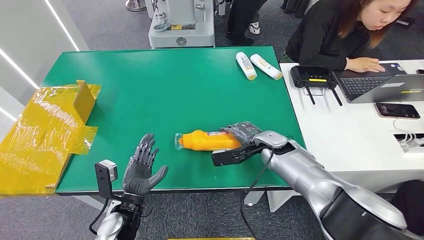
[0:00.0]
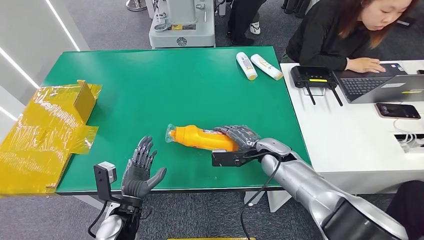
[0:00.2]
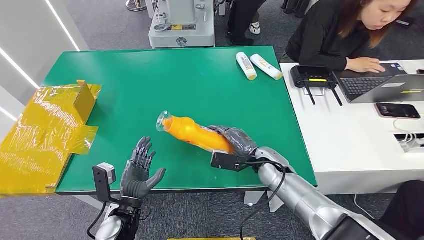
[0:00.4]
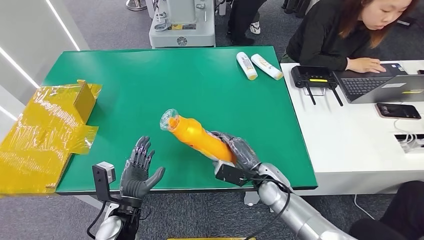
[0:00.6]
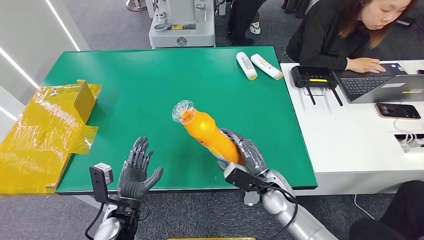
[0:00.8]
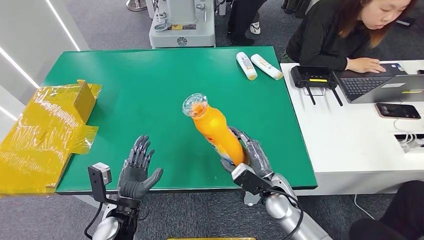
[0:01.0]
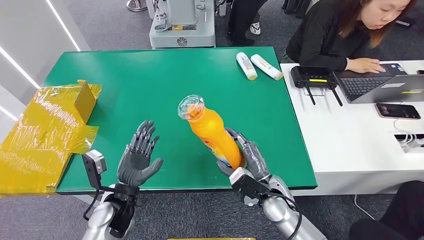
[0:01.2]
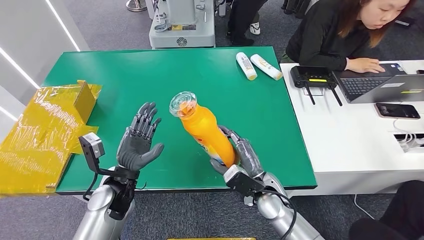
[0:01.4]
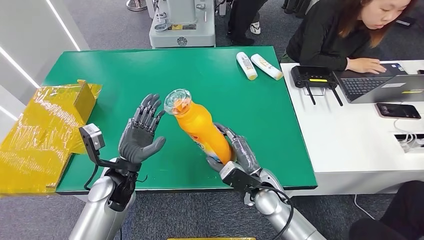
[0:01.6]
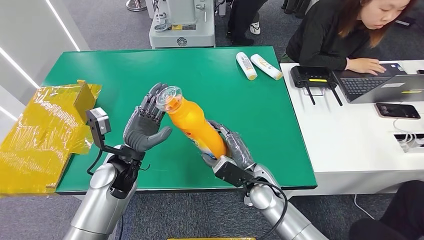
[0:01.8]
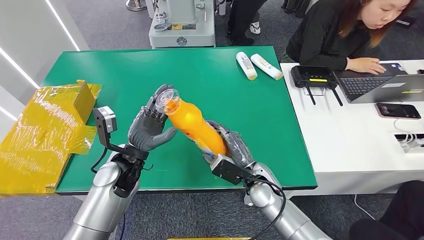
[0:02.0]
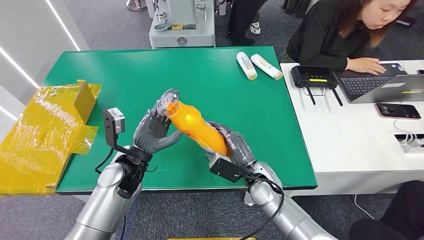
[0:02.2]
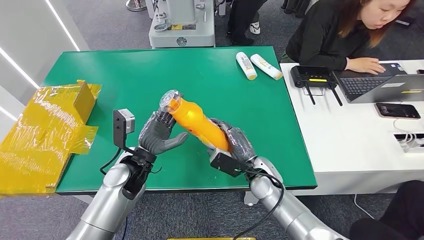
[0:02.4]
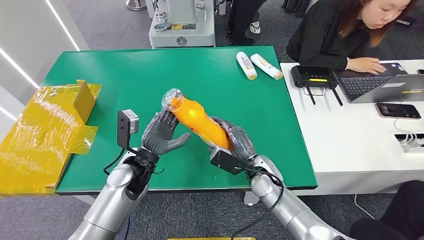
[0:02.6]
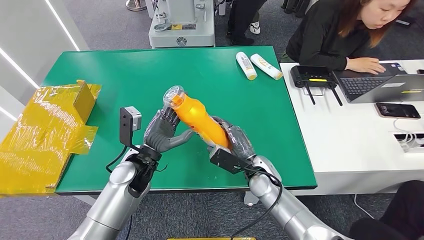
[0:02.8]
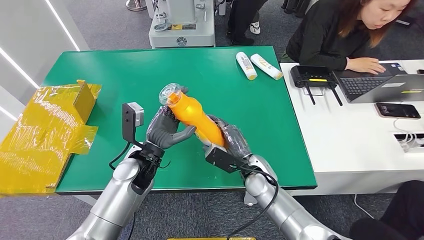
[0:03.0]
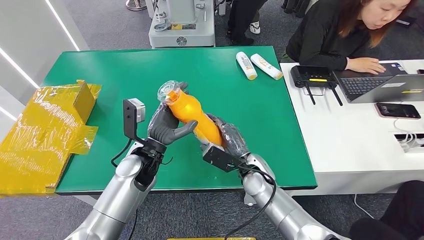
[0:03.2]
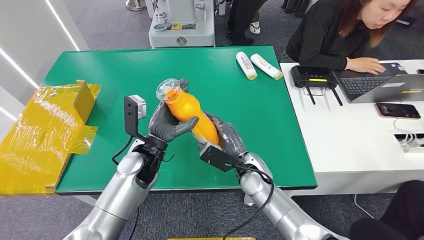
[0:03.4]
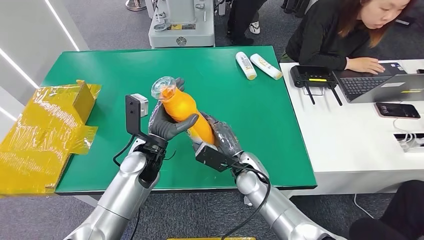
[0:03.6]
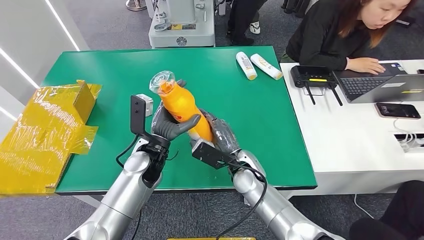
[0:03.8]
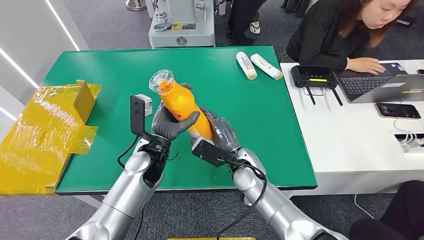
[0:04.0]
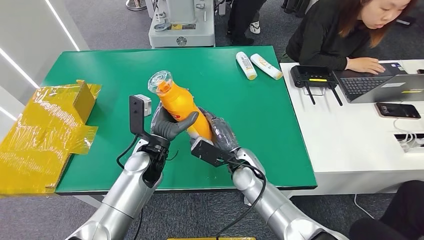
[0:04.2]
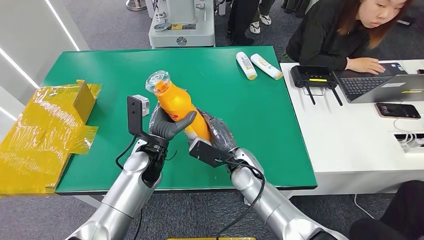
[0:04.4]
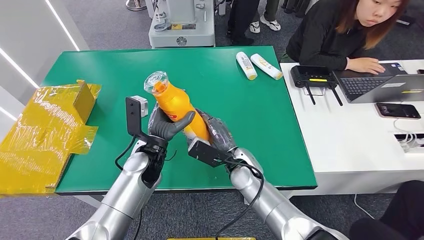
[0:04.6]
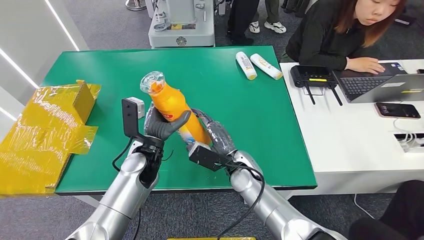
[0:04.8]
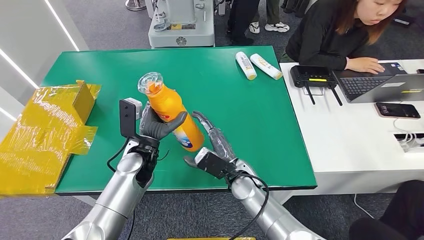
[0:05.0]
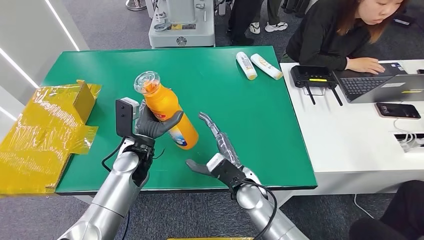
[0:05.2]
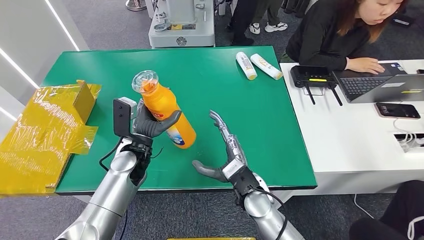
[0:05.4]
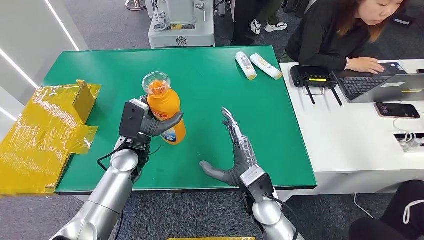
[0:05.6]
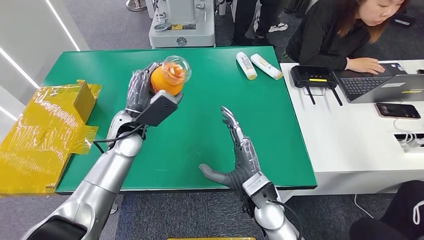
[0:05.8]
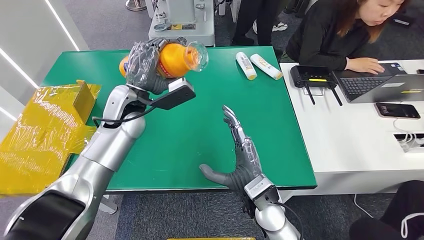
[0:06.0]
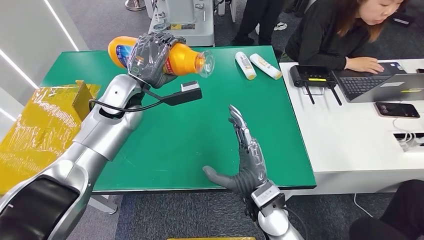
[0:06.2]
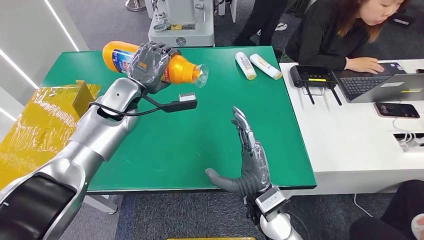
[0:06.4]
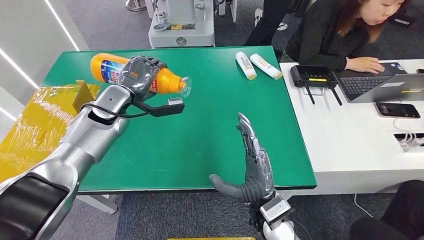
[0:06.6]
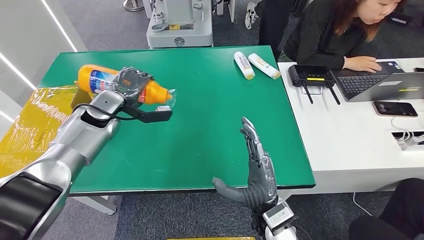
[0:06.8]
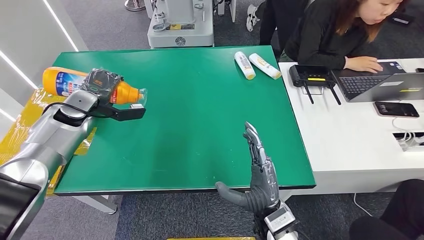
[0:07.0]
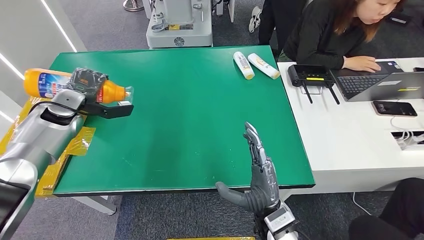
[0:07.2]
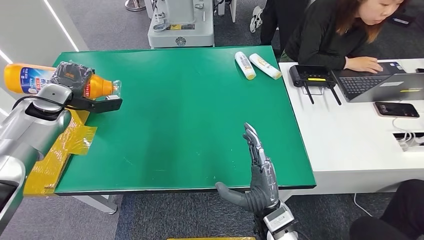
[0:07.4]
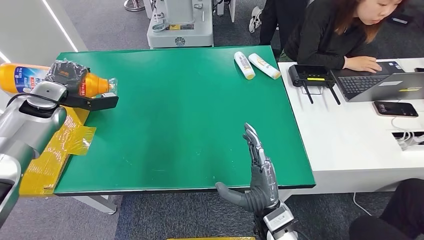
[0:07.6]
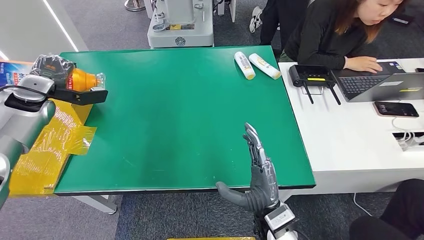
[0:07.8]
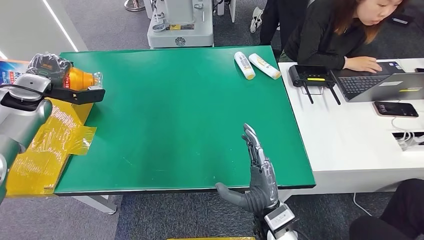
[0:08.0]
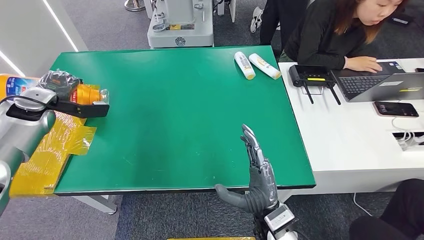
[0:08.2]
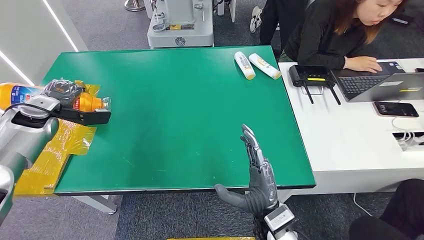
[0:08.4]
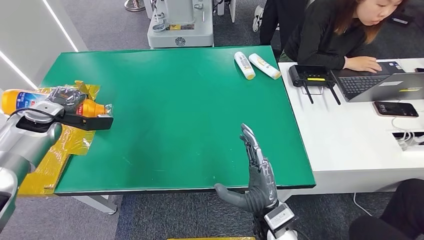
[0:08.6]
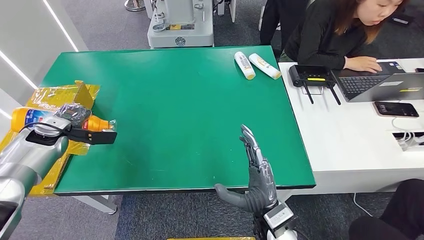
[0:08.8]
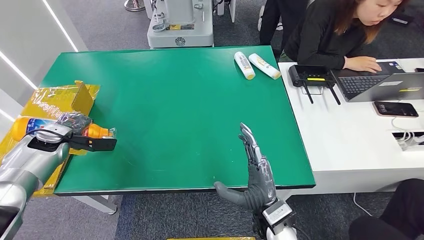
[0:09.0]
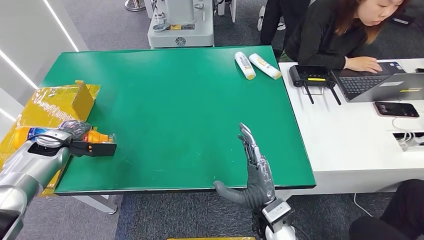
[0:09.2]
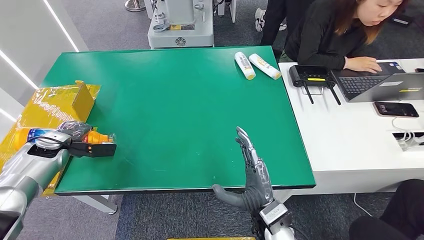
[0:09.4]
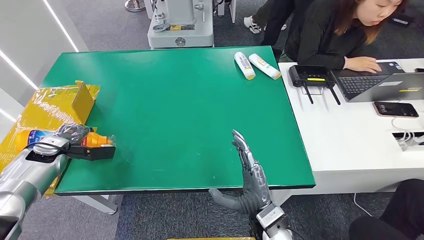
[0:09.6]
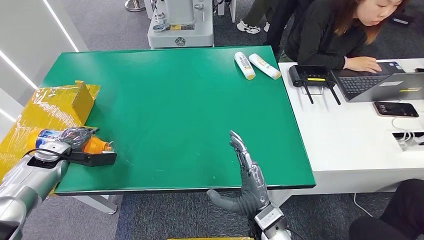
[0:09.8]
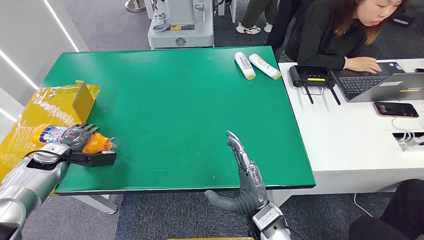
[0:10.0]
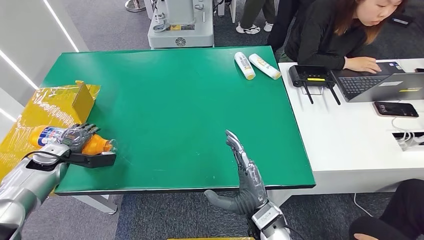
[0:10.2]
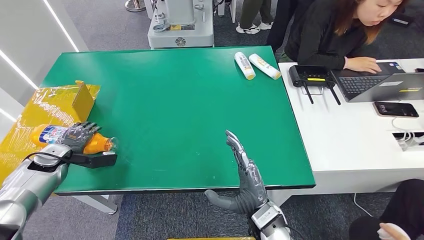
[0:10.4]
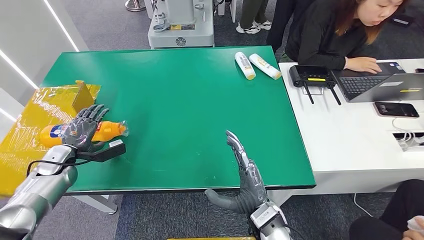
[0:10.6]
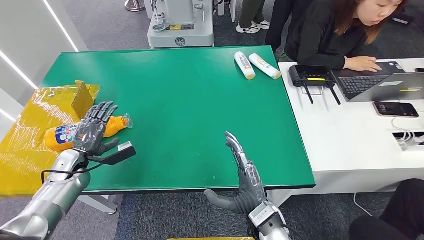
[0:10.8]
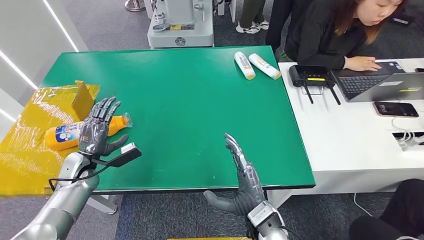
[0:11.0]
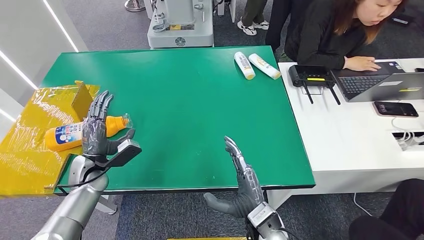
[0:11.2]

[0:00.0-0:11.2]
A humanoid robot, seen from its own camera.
Step, 1.2 to 11.2 s: Turn the bottle to the front side.
0.0 to 1.6 s: The left hand moves upward and forward, roughly 10 cm; the right hand goes roughly 10 cm backward.
1.6 to 3.2 s: The left hand is displaced to the right by some 5 cm.
3.2 to 4.8 s: The hands move only a little.
8.0 to 9.6 s: The left hand is displaced downward and backward by some 15 cm.
9.6 to 11.2 s: The left hand is displaced to the right by about 15 cm.

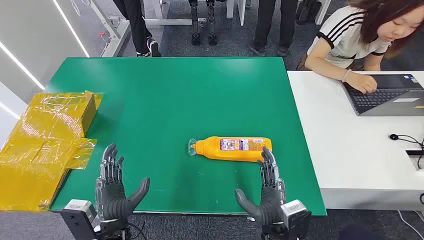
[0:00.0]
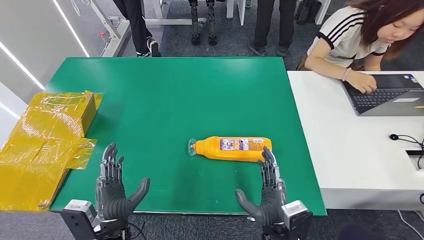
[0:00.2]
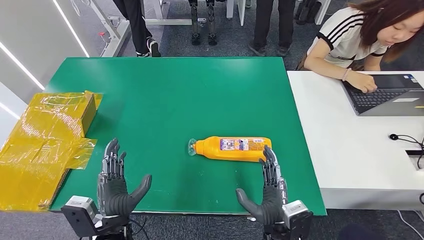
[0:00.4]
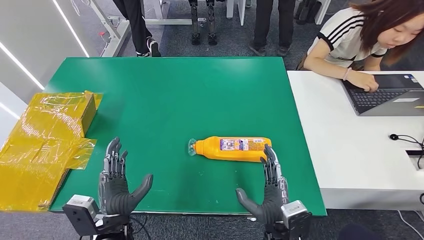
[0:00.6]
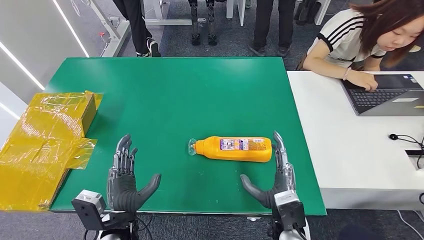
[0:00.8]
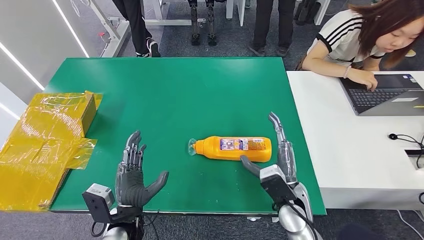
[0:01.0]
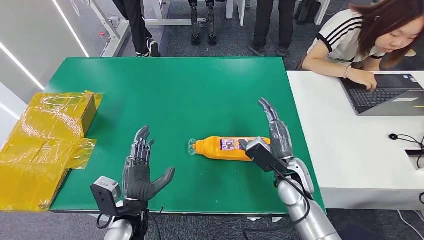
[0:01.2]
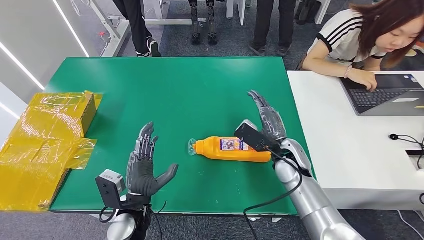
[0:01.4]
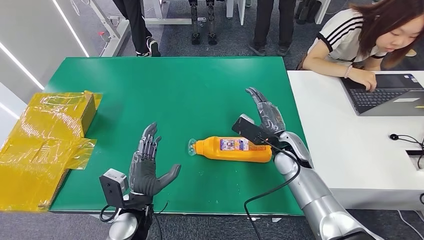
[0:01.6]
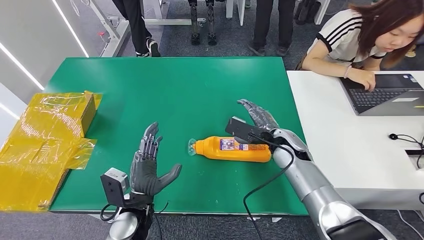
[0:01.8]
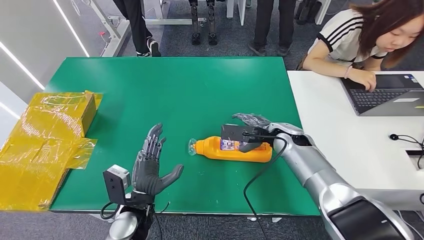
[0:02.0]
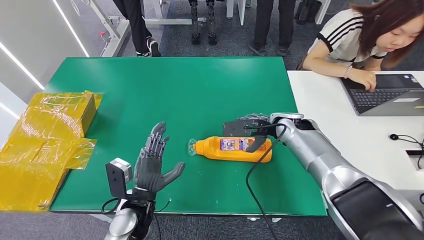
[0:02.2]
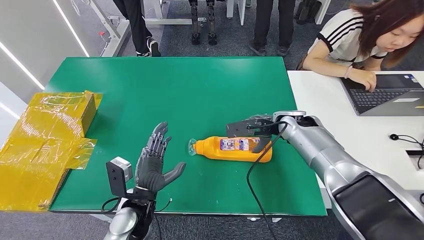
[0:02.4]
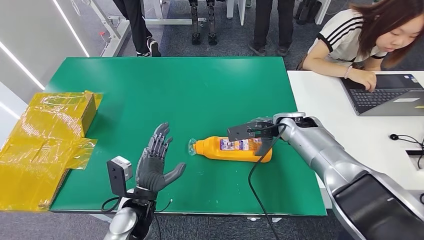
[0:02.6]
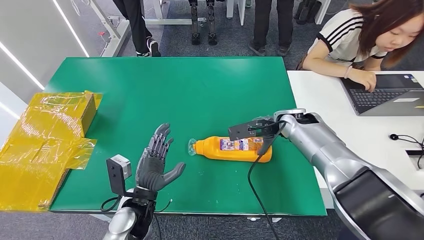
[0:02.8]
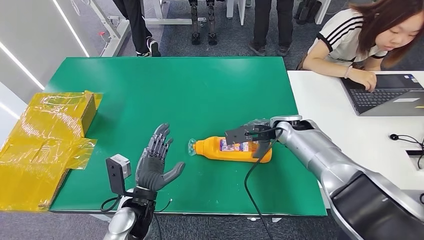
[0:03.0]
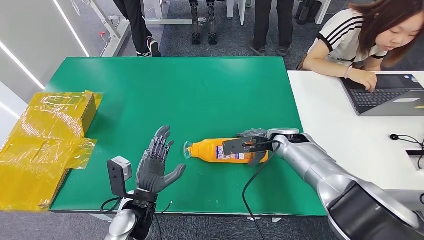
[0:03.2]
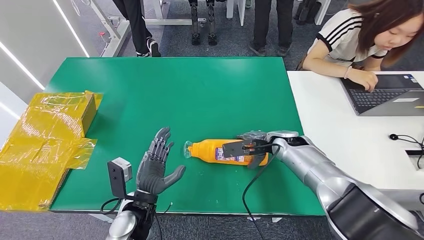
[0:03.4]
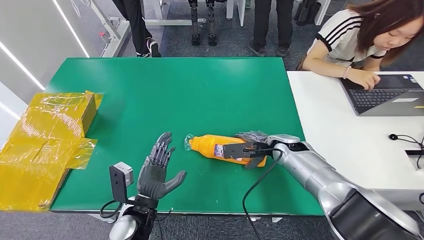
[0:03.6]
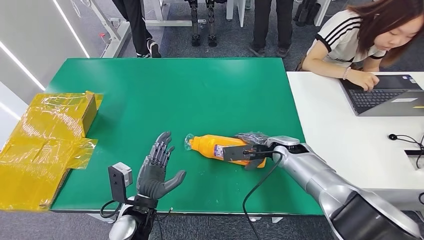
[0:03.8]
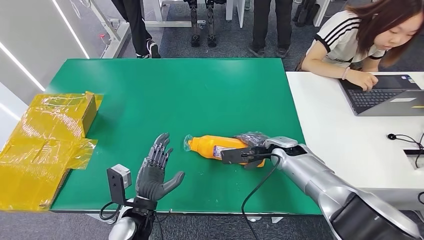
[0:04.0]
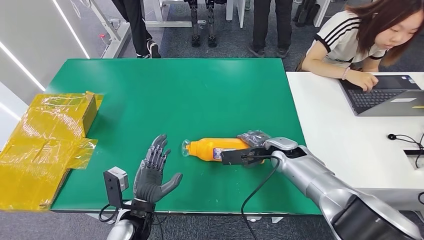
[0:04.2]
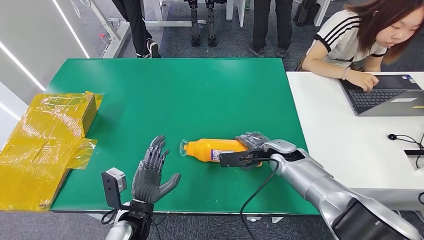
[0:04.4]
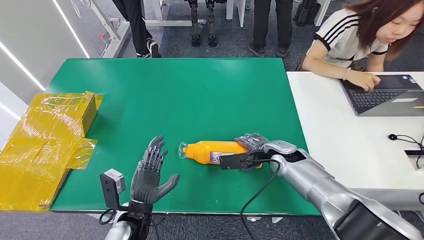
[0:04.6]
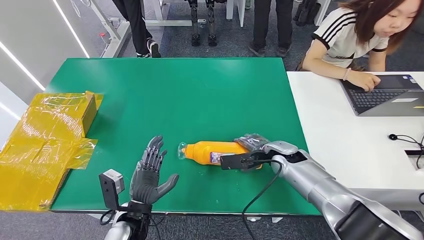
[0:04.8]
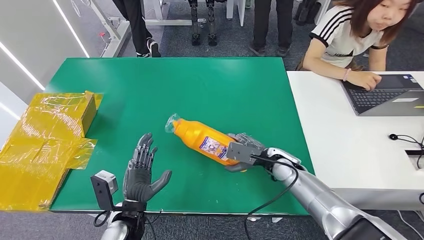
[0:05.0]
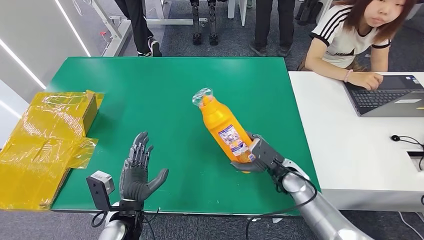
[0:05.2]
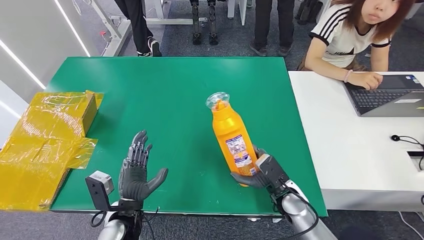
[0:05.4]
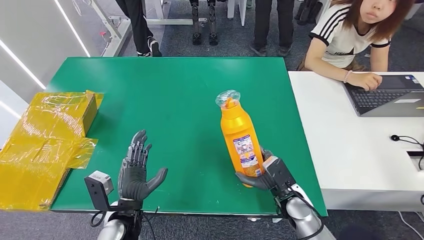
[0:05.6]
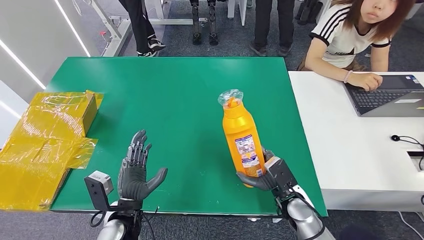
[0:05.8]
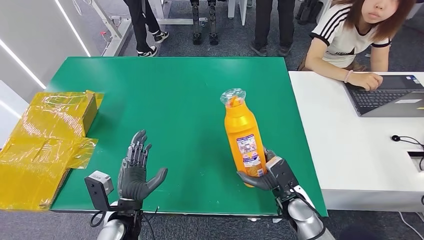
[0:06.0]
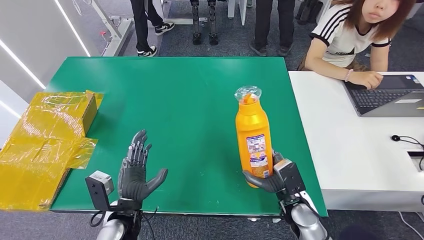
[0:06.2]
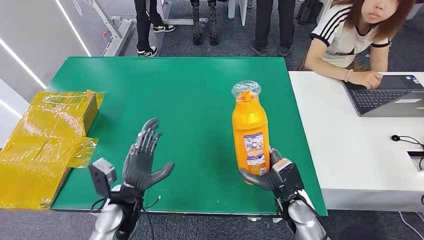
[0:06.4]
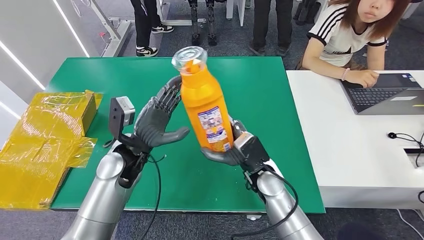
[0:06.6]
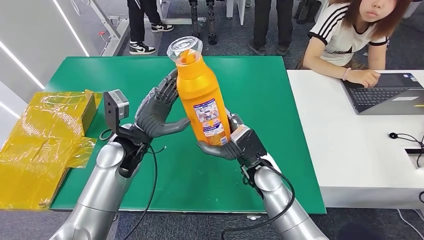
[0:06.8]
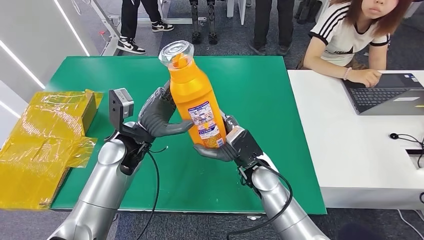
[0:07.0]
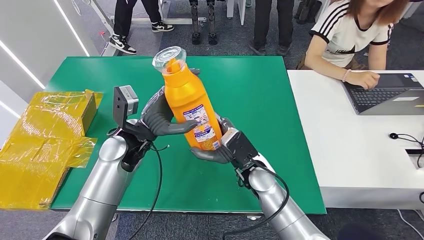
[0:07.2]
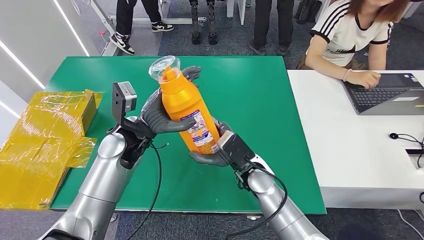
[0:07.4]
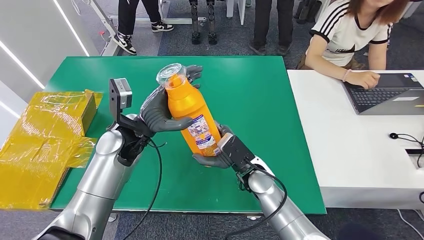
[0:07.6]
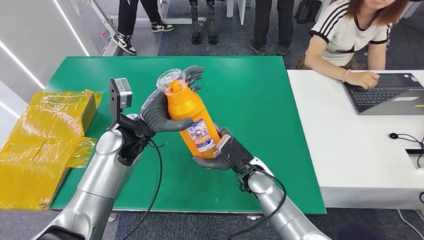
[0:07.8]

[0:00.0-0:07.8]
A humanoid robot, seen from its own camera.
Step, 0.0 to 5.6 s: Pick up the bottle from the table.
3.2 to 4.6 s: The right hand moves roughly 5 cm.
